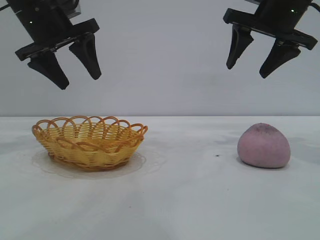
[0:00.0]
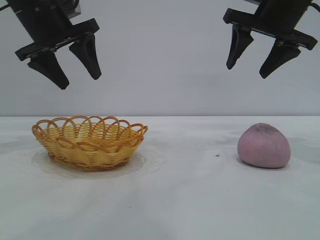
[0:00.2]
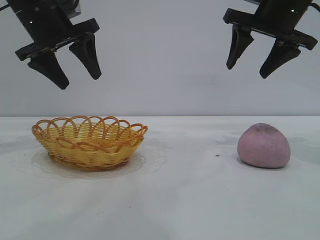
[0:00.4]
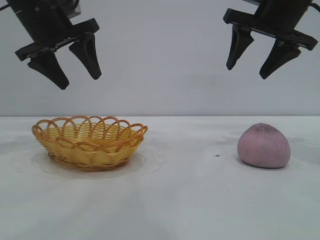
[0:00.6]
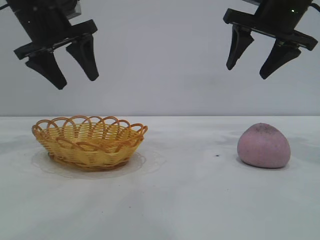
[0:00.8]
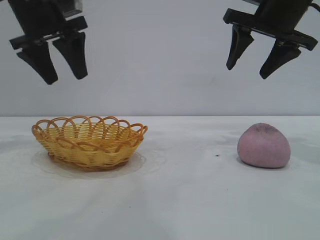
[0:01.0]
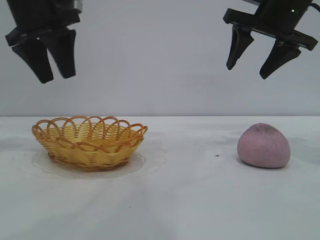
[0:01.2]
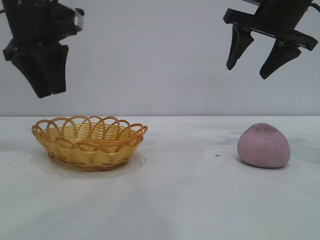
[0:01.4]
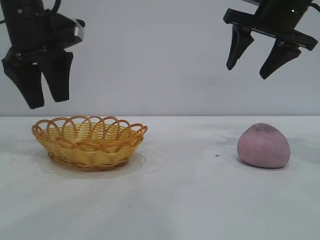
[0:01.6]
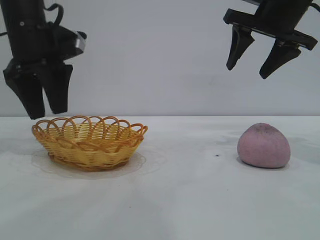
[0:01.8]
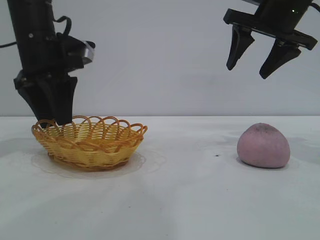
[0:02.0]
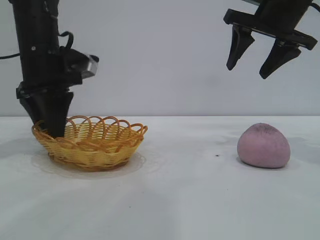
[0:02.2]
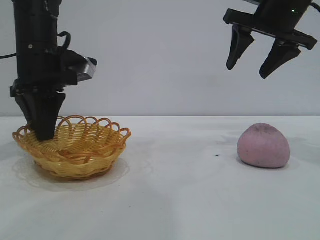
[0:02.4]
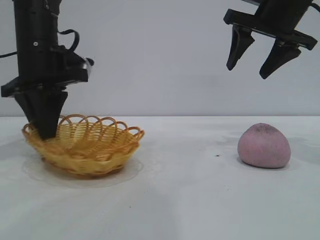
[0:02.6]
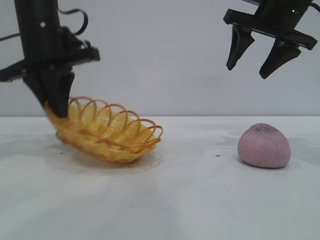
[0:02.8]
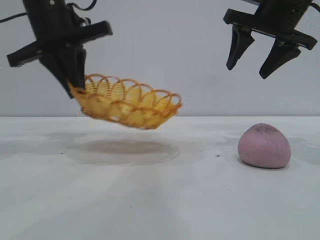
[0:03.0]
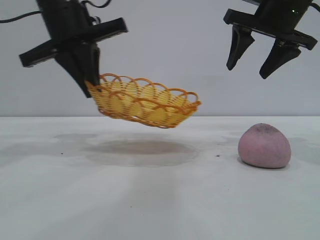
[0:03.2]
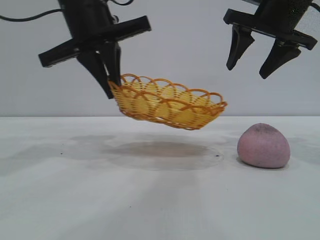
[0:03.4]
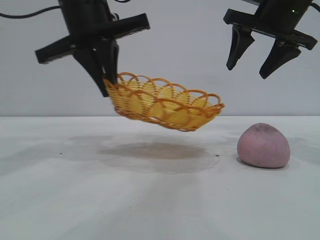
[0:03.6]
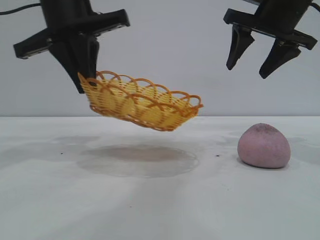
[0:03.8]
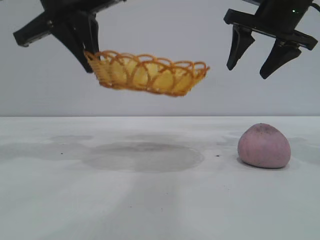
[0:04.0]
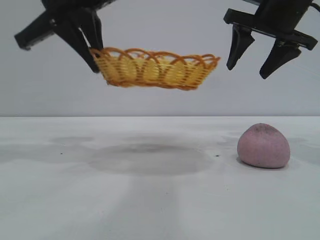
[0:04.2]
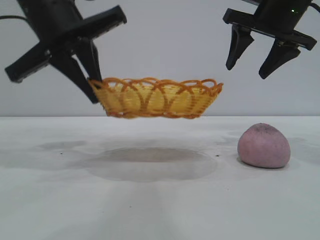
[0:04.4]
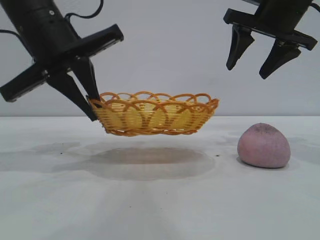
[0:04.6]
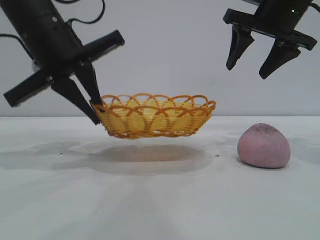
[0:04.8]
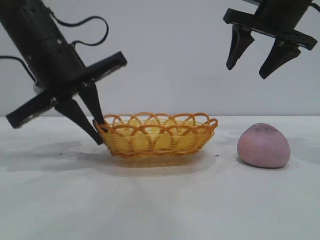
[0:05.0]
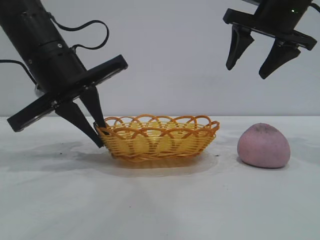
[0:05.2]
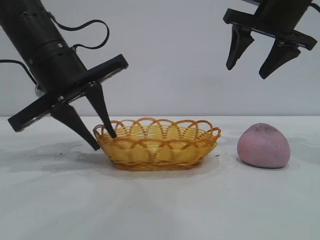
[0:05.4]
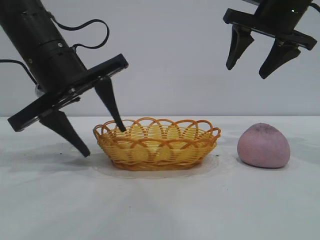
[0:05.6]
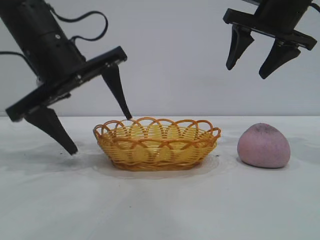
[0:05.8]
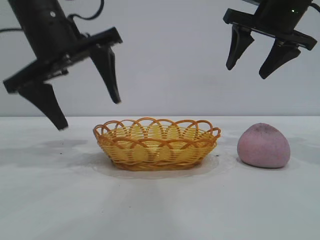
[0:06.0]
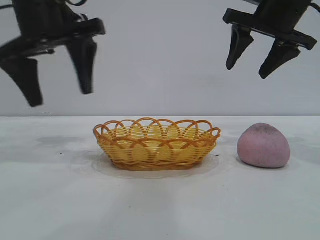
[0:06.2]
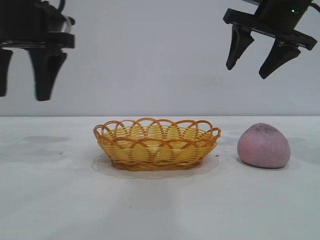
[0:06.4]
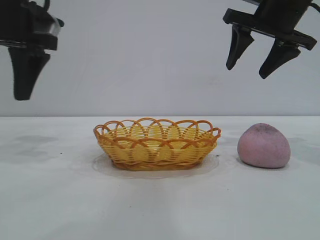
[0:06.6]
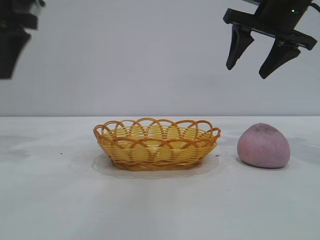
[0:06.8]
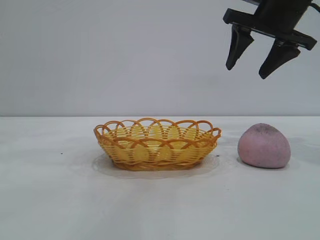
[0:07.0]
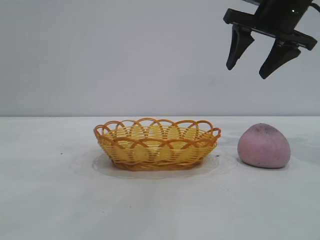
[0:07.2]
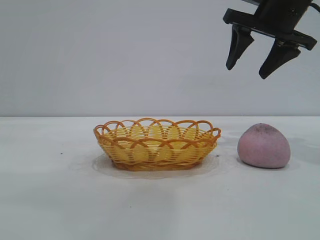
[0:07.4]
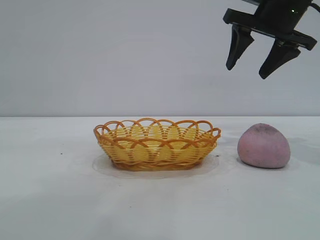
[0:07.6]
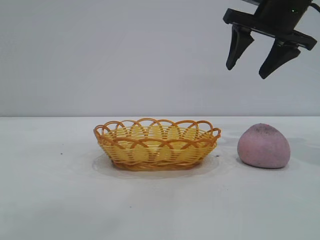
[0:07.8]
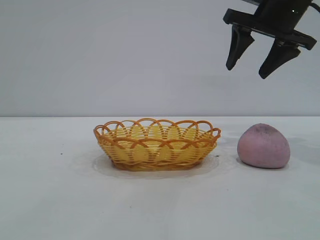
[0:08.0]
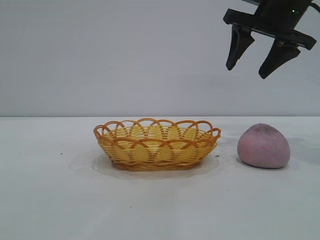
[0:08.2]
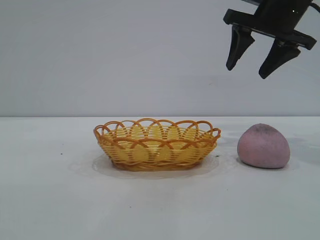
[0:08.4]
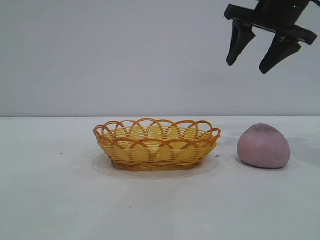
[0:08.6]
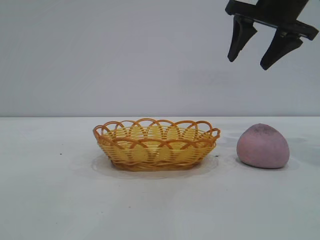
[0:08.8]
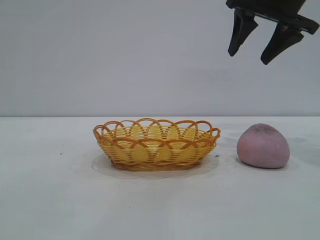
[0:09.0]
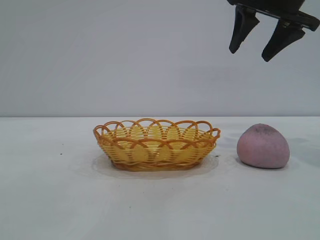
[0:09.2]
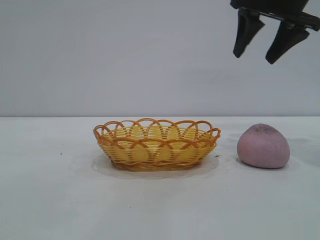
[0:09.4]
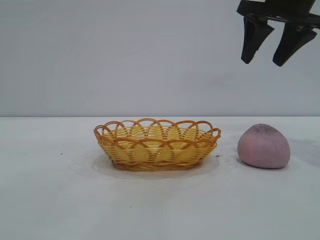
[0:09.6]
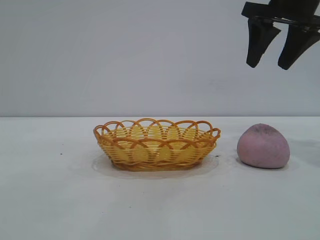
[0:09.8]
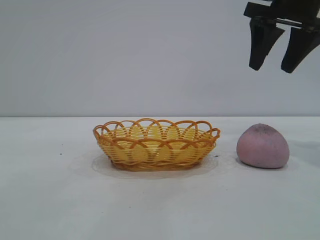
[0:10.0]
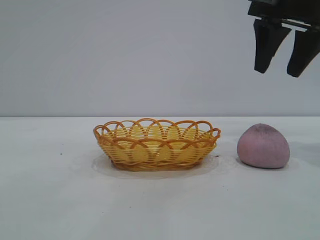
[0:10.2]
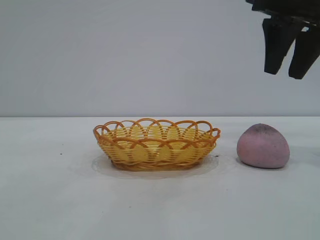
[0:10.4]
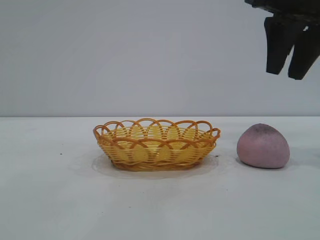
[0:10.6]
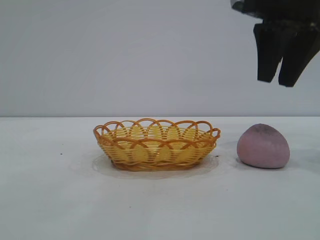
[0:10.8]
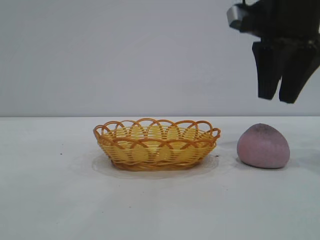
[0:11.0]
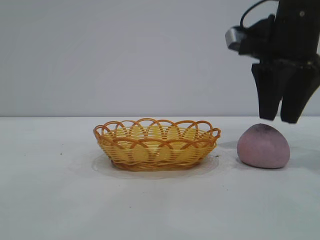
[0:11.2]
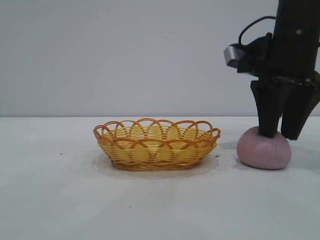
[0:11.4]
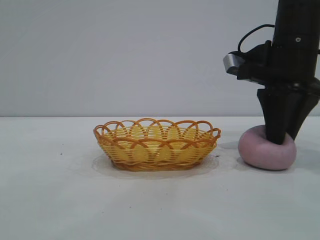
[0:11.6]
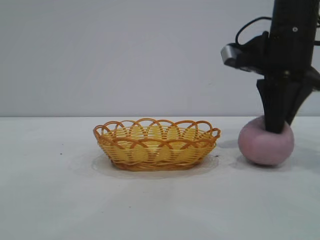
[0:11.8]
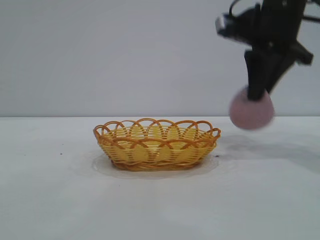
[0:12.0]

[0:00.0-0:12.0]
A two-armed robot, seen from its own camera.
Task of the whole recording: pick up the peach and put it into the basket.
Step, 0:00.0 to 0:06.0: Move the basket to the center of view.
Step, 0:06.2 to 0:11.8: Pick up the peach.

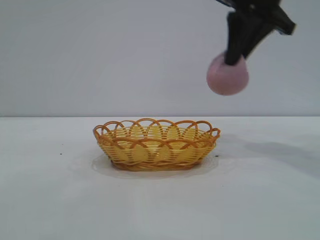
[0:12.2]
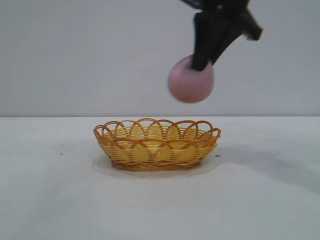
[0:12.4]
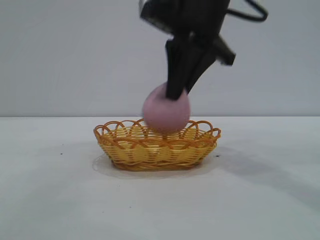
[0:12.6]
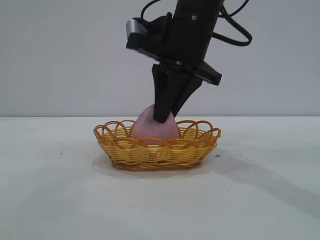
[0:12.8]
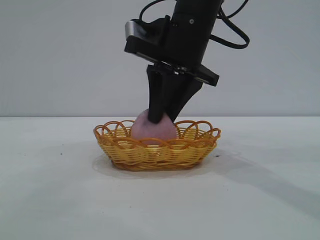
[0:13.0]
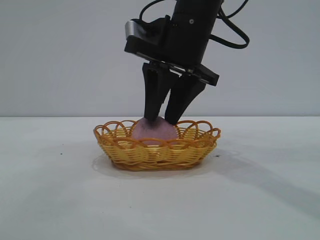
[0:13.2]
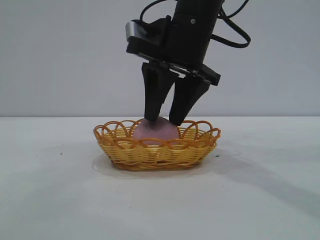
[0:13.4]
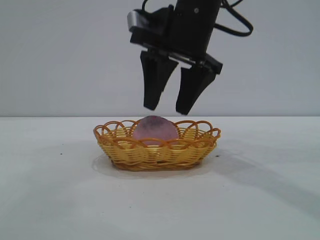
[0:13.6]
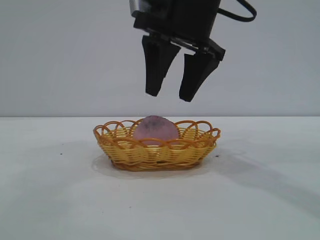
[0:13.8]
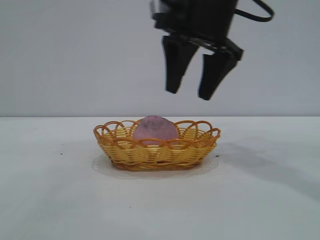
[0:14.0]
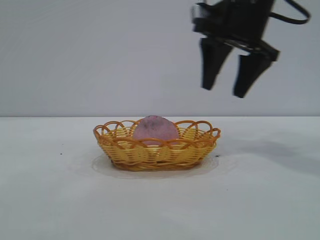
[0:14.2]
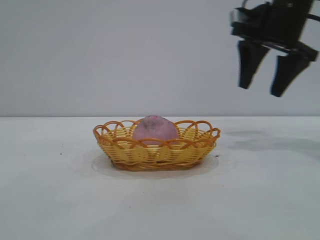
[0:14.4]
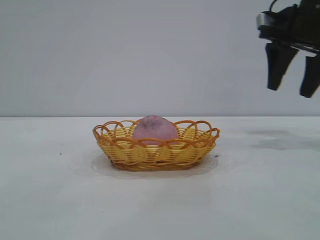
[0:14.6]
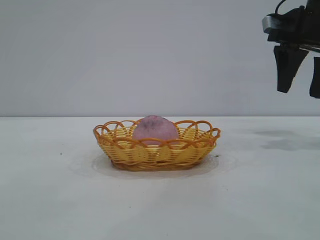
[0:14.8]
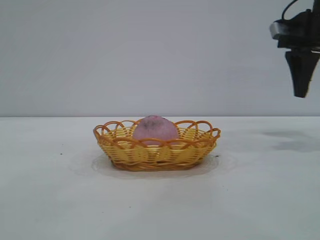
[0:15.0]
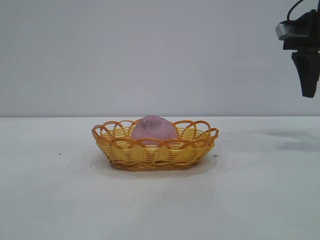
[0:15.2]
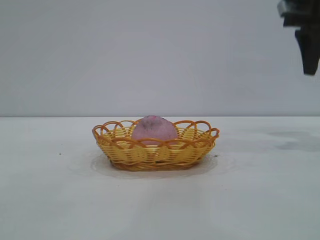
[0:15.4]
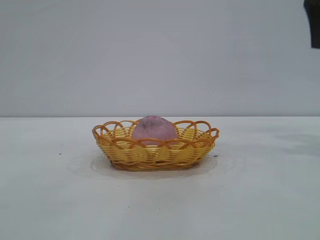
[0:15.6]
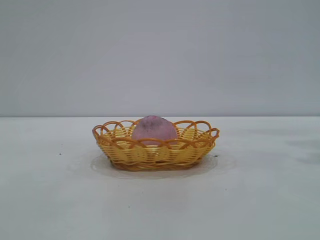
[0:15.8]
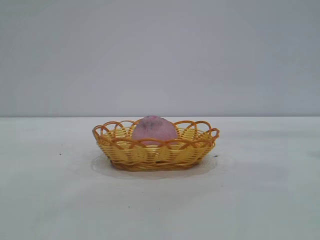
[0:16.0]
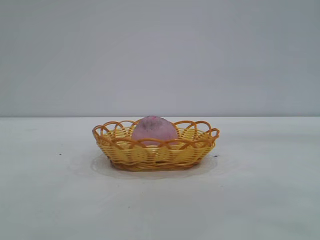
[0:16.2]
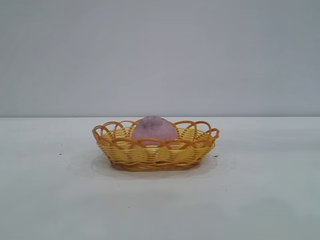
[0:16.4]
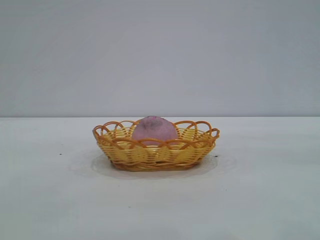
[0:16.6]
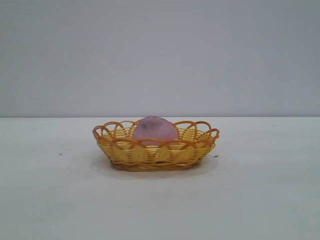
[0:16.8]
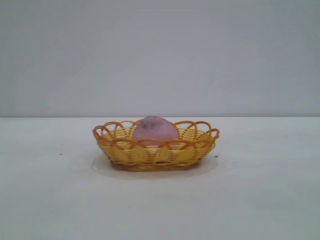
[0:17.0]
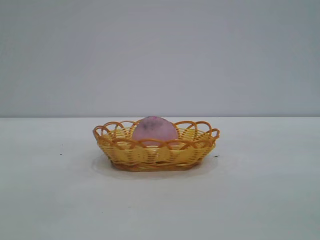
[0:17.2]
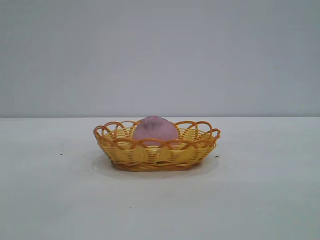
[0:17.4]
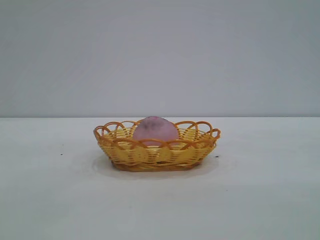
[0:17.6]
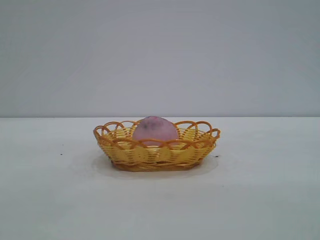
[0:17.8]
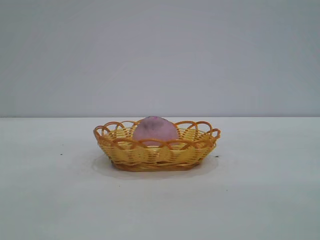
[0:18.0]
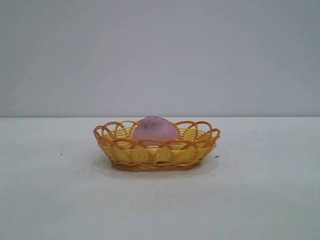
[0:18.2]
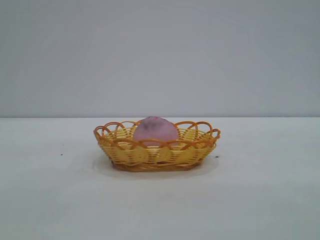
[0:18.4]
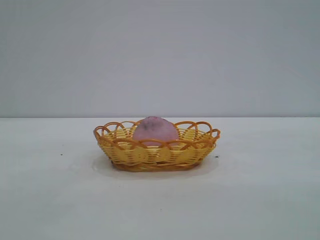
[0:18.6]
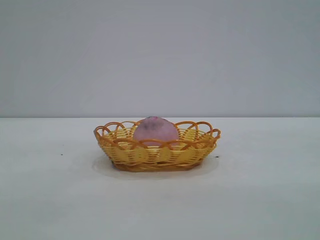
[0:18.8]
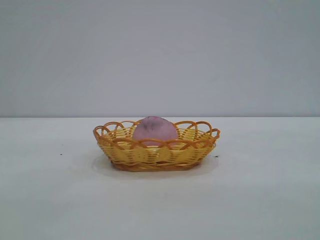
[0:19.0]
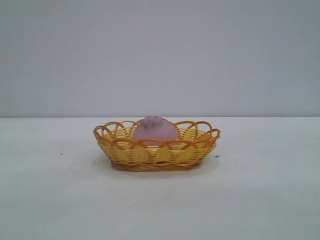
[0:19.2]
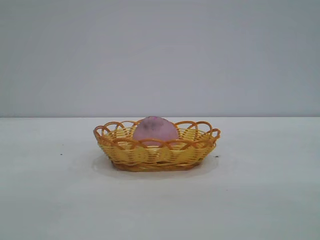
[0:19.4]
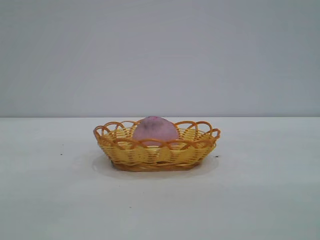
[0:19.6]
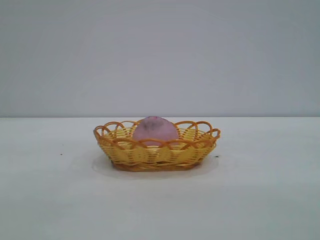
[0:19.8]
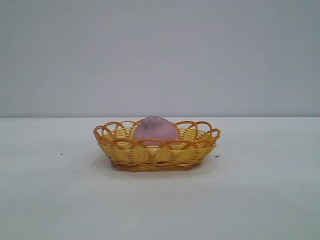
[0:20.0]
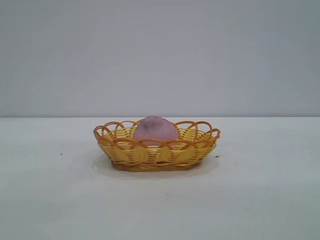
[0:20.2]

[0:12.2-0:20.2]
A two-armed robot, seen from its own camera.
Task of the whole recording: pick up the peach and put it into the basket.
Step, 0:12.2 to 0:13.8: place the peach into the basket.

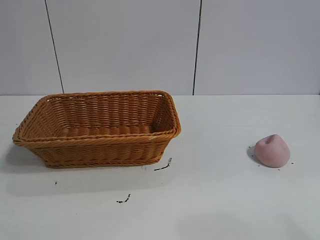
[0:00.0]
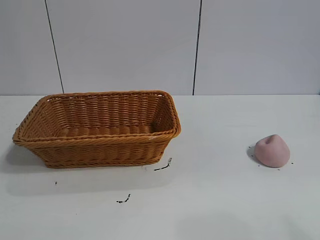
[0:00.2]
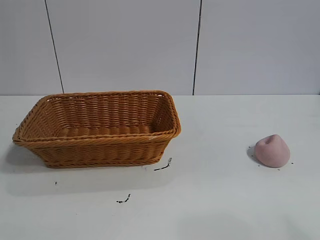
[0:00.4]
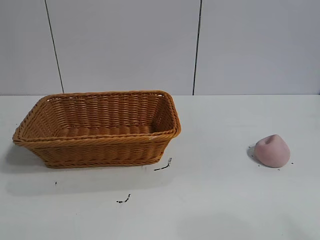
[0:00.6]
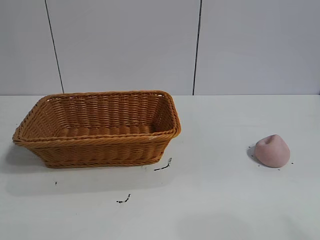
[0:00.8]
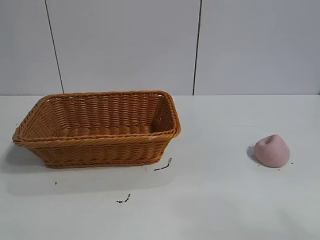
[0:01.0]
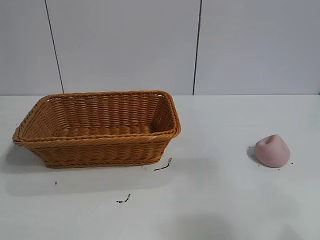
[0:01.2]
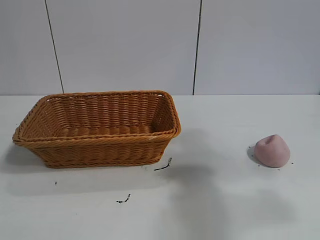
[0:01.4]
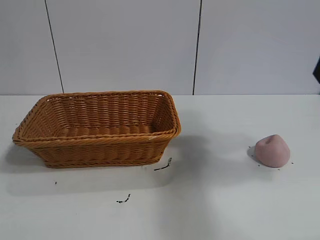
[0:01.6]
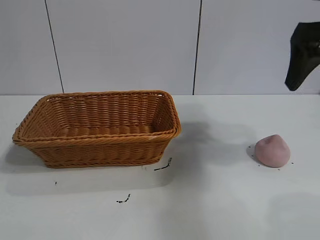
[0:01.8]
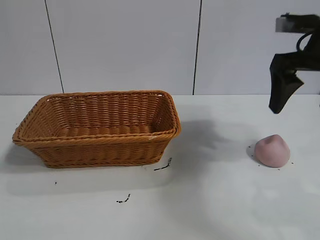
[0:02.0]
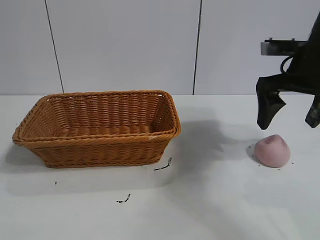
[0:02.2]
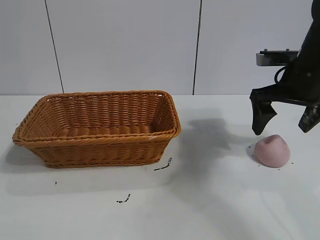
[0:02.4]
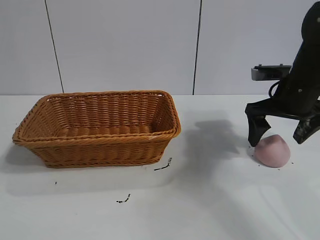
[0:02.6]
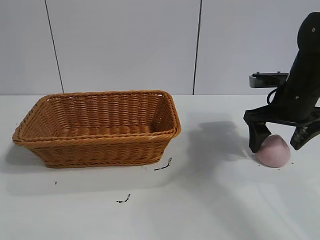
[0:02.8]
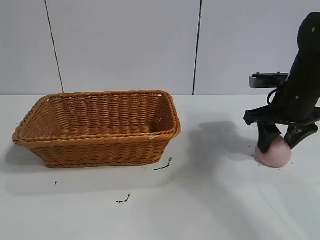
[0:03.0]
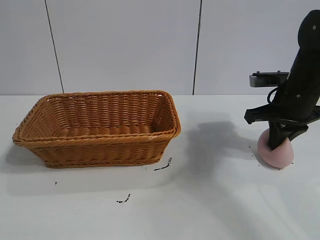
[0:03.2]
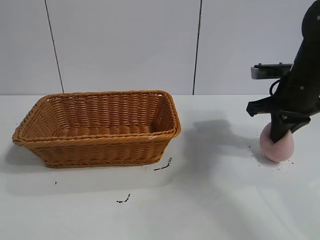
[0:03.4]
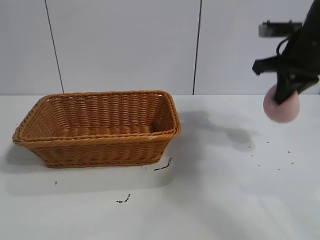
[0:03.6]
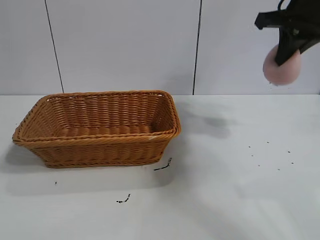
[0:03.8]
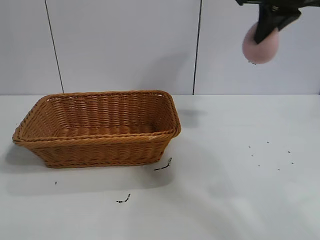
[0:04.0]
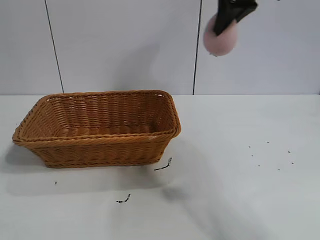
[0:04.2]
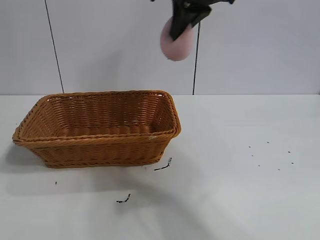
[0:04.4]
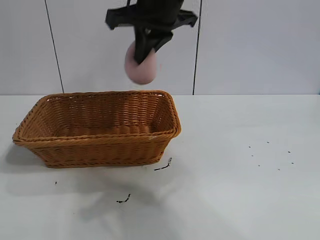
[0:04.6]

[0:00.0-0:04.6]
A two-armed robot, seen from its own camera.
Task of the whole recording: pick up the peach and put it into the basket.
Step, 0:01.0 to 0:03.0: Grasp the peach with right gripper.
